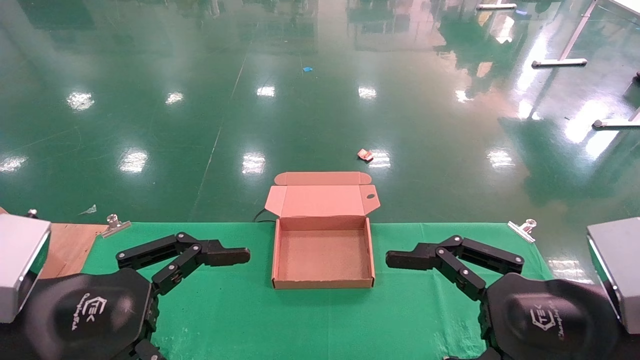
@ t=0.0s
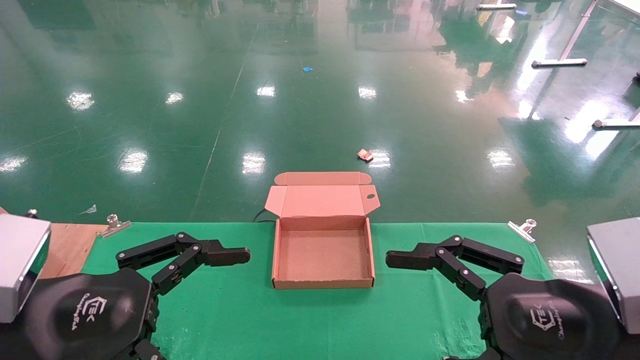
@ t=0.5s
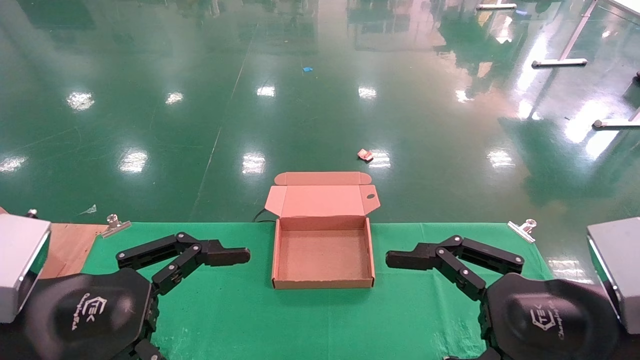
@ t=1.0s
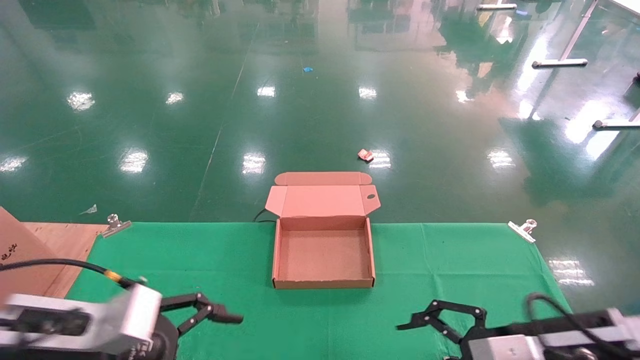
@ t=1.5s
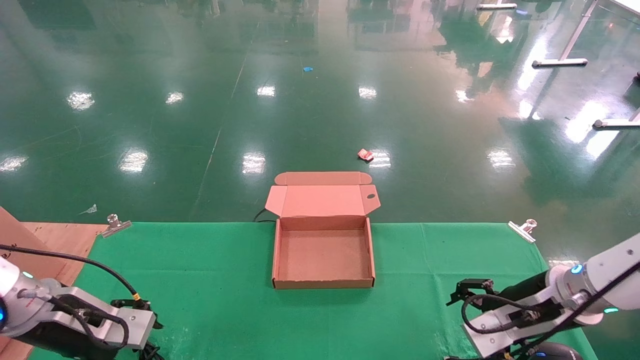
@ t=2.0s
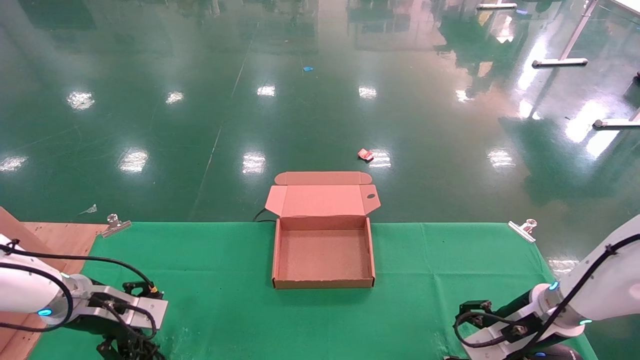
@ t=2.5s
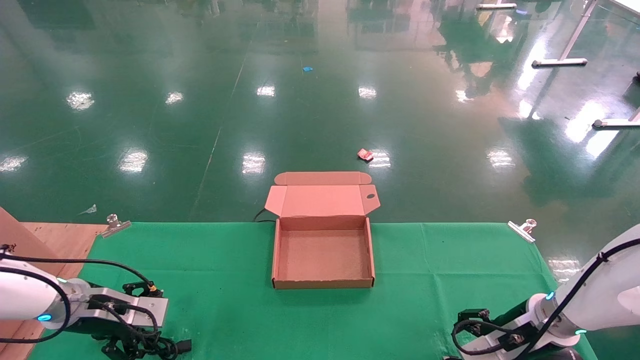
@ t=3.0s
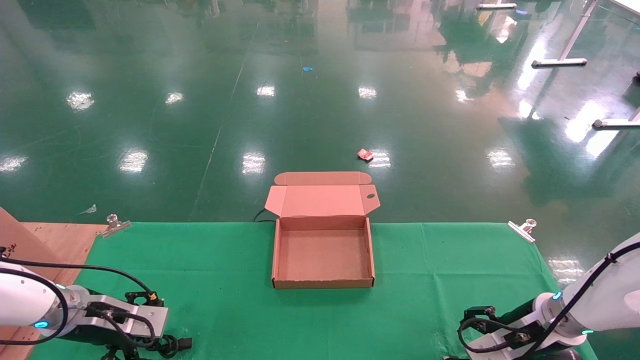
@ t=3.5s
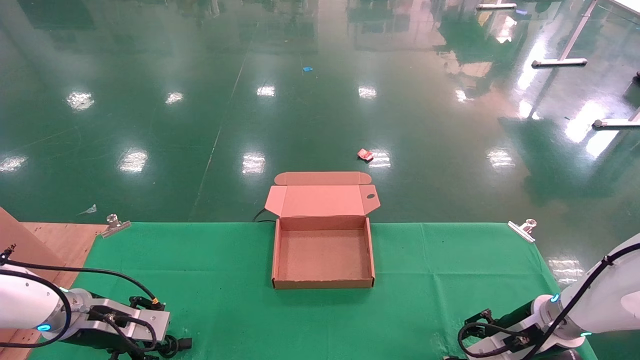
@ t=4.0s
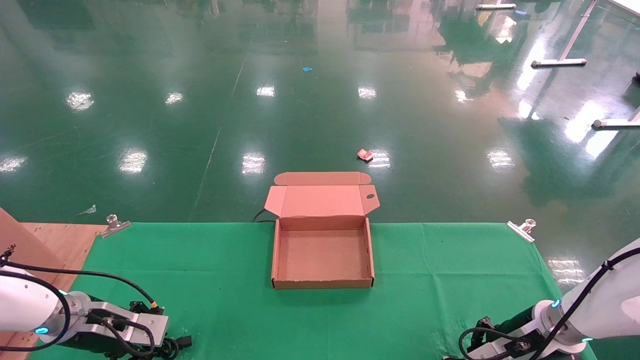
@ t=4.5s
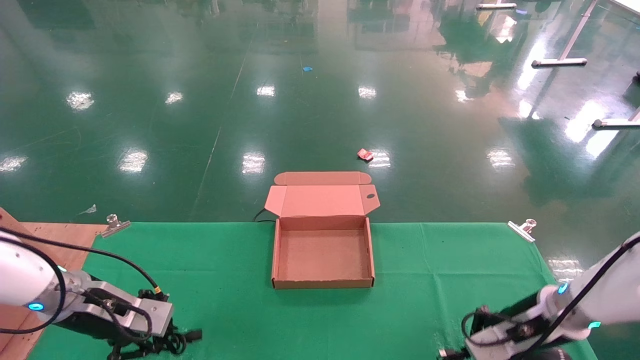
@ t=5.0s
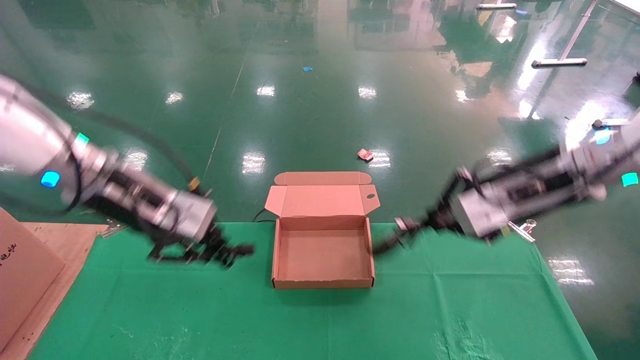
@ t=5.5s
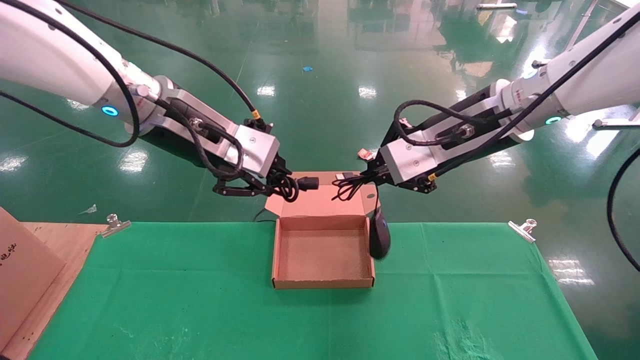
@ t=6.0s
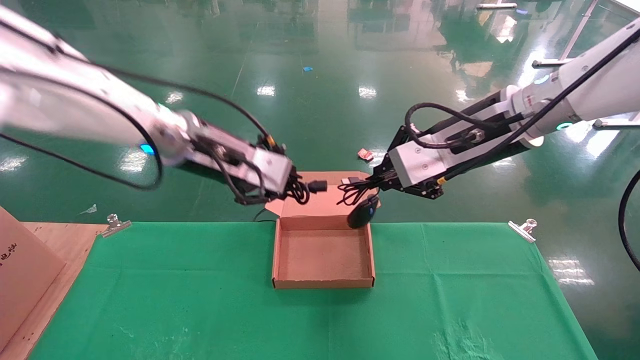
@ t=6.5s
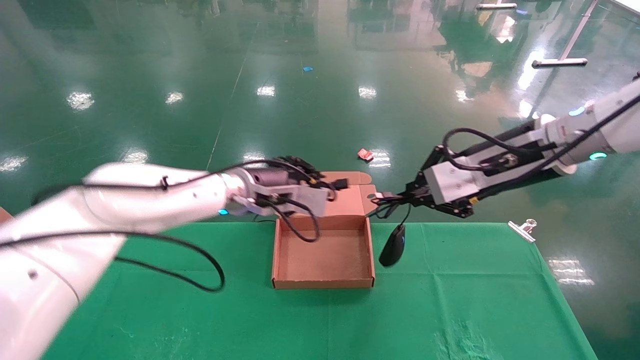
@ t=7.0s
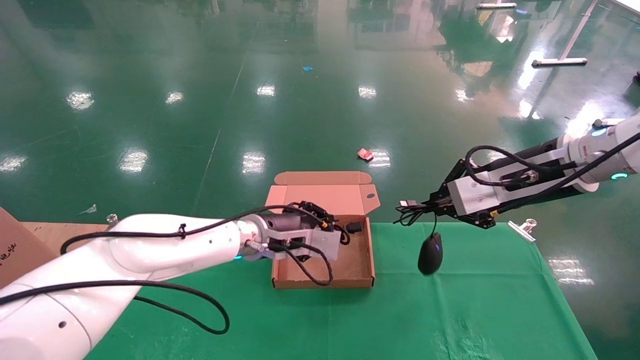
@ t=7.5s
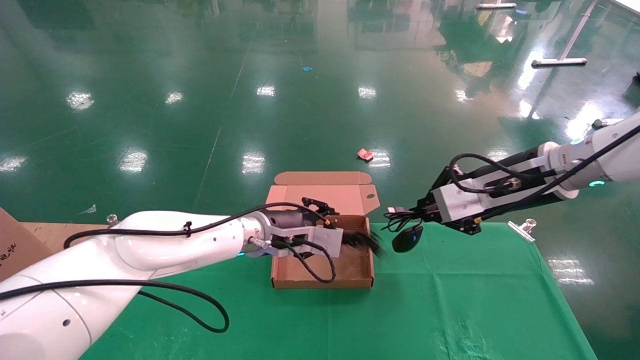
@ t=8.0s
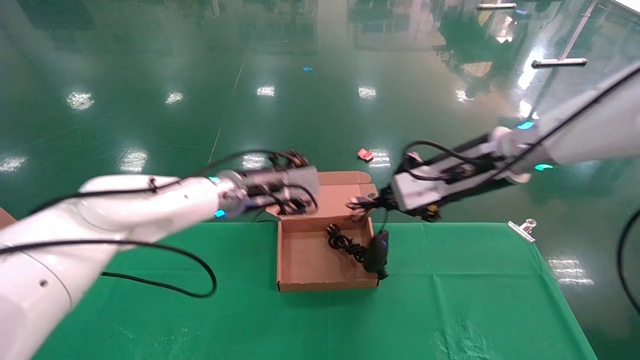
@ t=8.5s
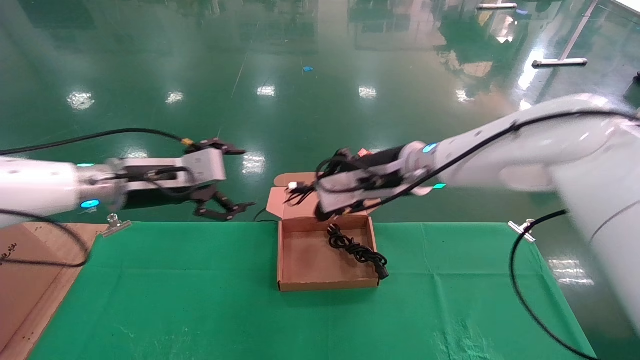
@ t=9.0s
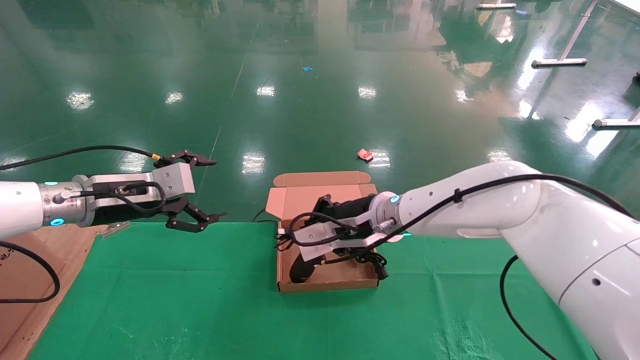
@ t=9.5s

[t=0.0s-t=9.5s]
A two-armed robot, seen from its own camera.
Step, t=1.5s to t=5.0s: Grab and lift both the mouse and power cord from the accessory packaging area at the same time.
t=0.0s to t=2.0s: The left gripper shifts roughly 20 cm forward, downward and to the left. Meanwhile the right gripper heads forward and downward, covering approximately 20 cm.
t=2.0s to t=4.0s: The grippers both shift downward by about 5 cm. The left gripper closes its fingers.
t=4.0s to t=5.5s: The right gripper shifts some 25 cm upward, and closes its fingers. The left gripper travels upward and to the right by roughly 25 cm, and closes its fingers.
t=5.5s to t=7.5s: The right gripper reaches approximately 5 cm to the left, then returns. Meanwhile the left gripper shifts some 20 cm to the right, downward and forward.
t=7.5s to t=9.5s: The right gripper heads to the left and downward, covering about 20 cm; the left gripper moves to the left, some 20 cm, and opens.

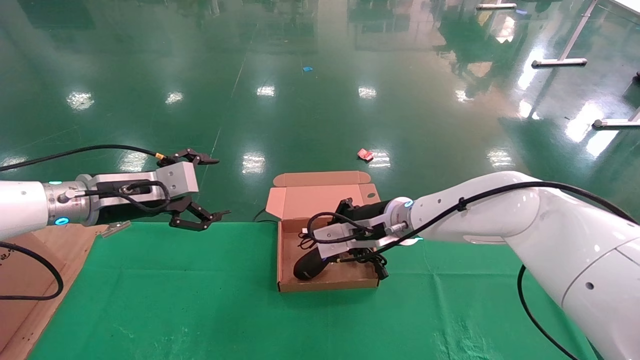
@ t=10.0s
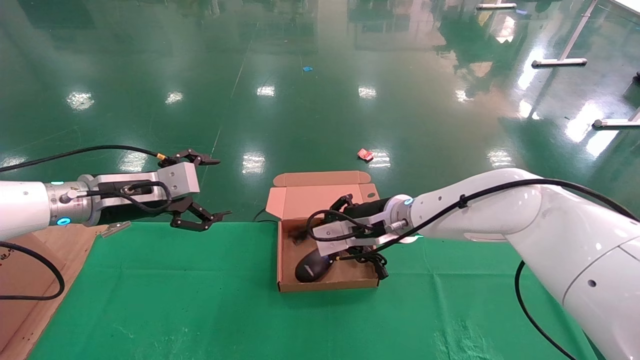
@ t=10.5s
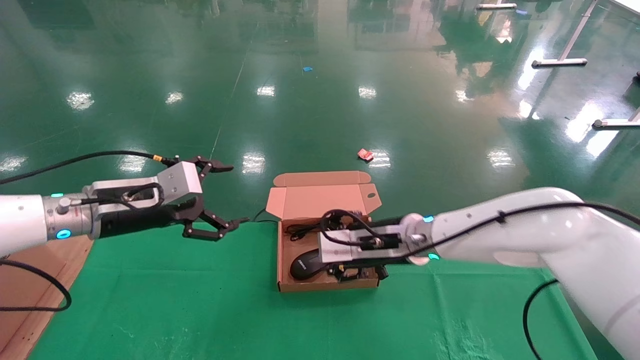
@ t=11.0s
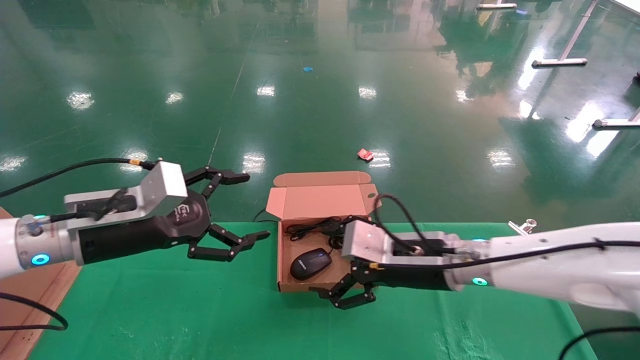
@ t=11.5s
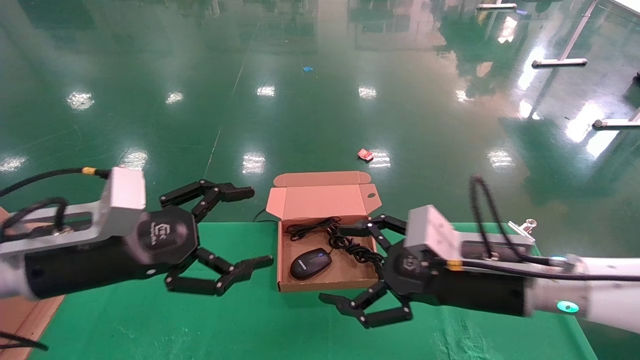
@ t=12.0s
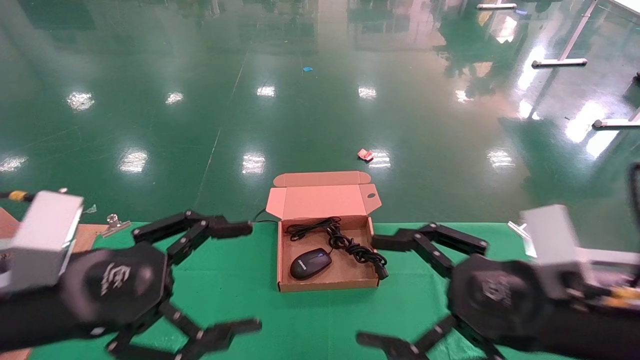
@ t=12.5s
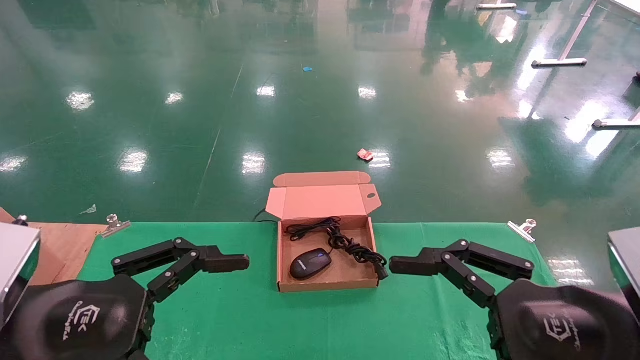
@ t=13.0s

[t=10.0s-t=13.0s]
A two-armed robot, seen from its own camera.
t=10.0s to t=11.5s: The right gripper is displaced backward and to the right by some 10 cm, and opens its fingers. Meanwhile the left gripper heads backward, covering some 5 cm.
t=11.5s to t=13.0s: The right gripper heads backward and to the right, covering roughly 25 cm. Meanwhile the left gripper moves backward, approximately 15 cm.

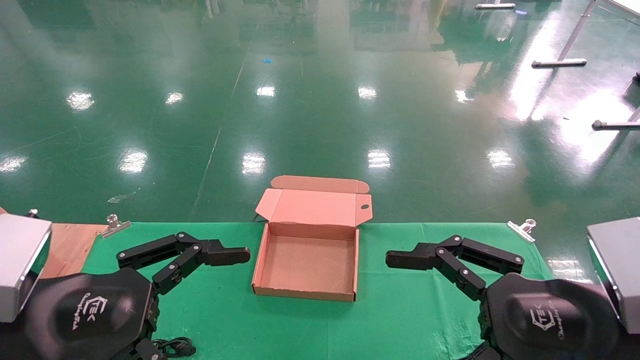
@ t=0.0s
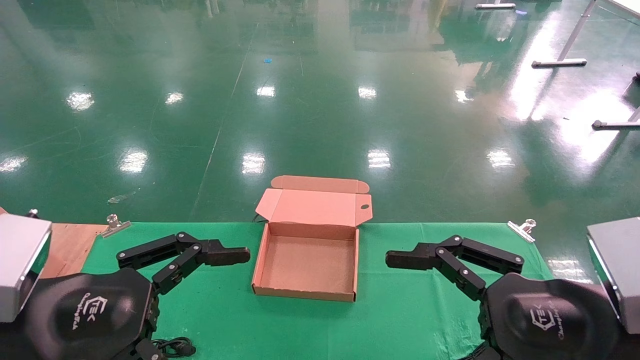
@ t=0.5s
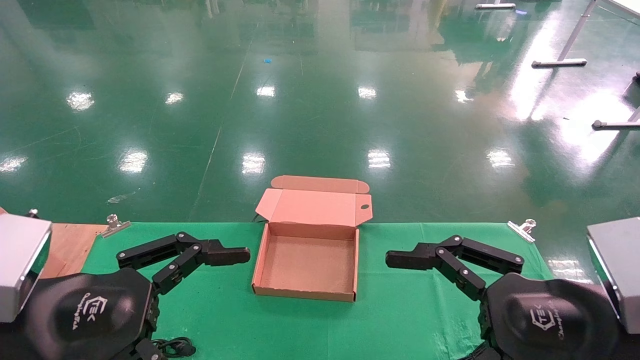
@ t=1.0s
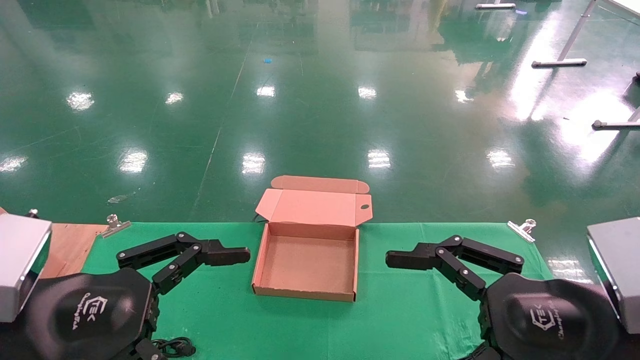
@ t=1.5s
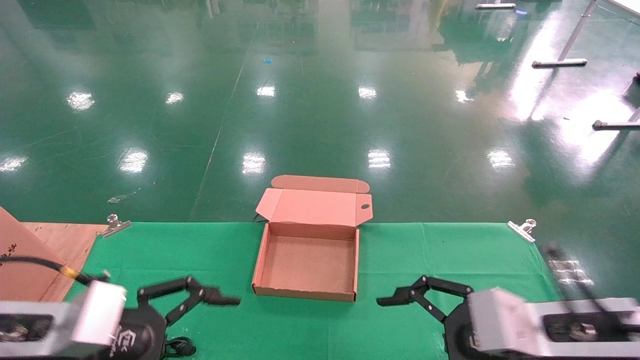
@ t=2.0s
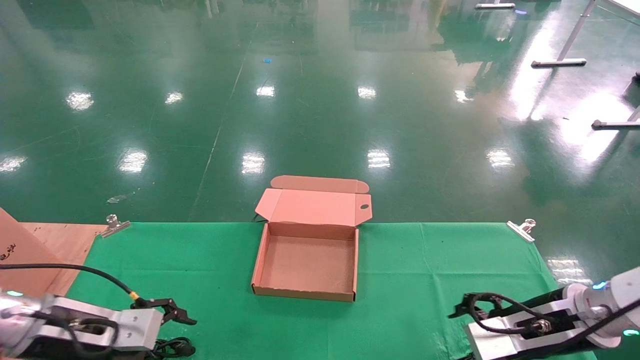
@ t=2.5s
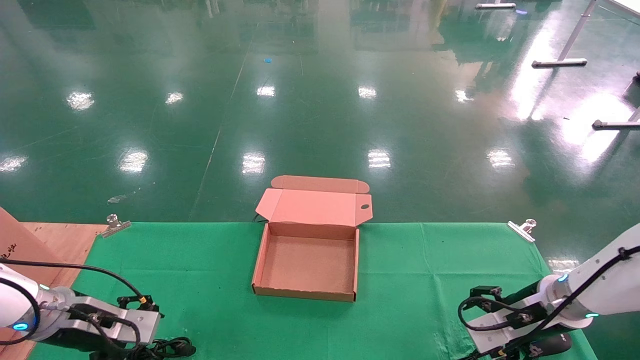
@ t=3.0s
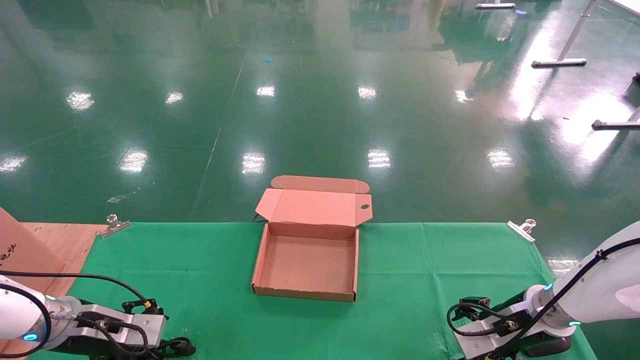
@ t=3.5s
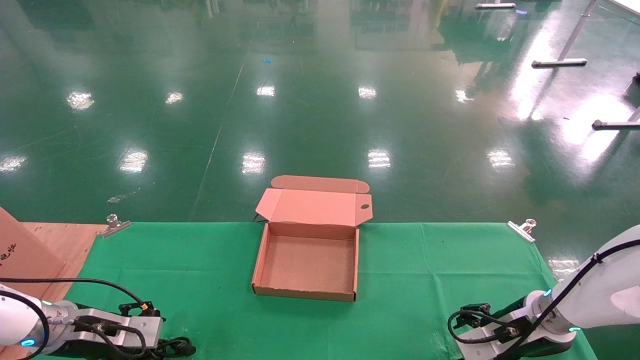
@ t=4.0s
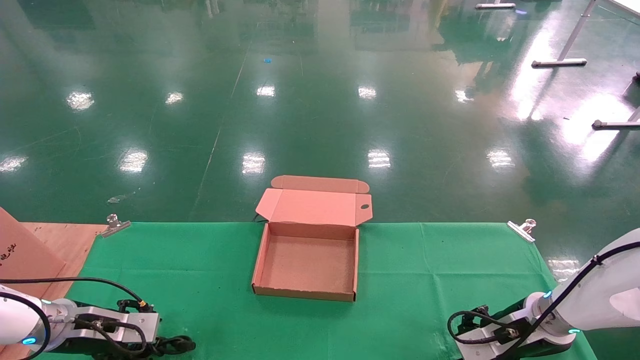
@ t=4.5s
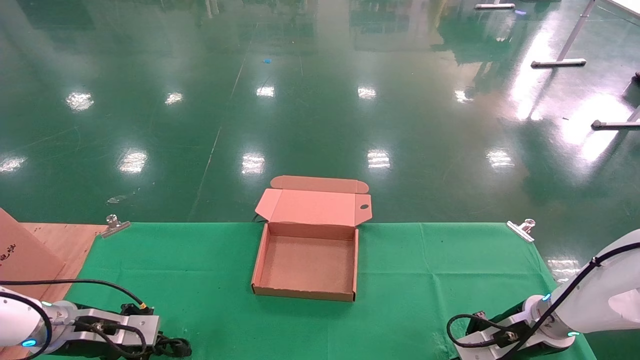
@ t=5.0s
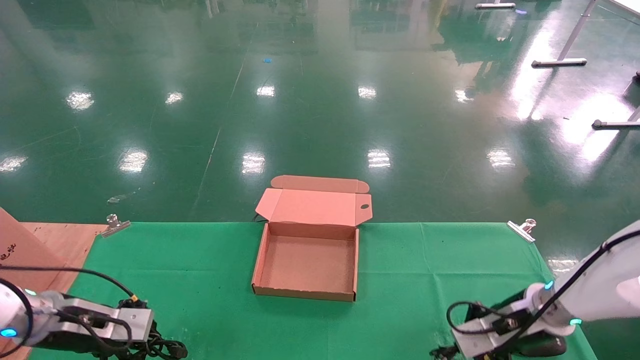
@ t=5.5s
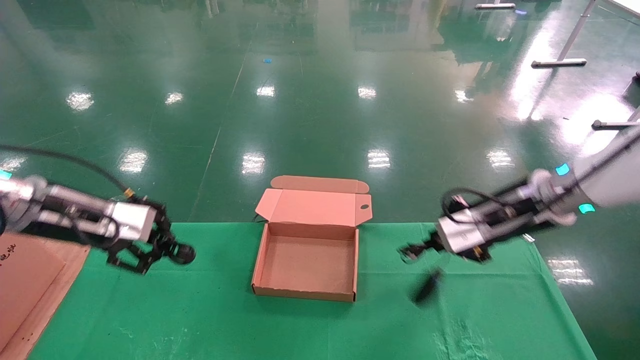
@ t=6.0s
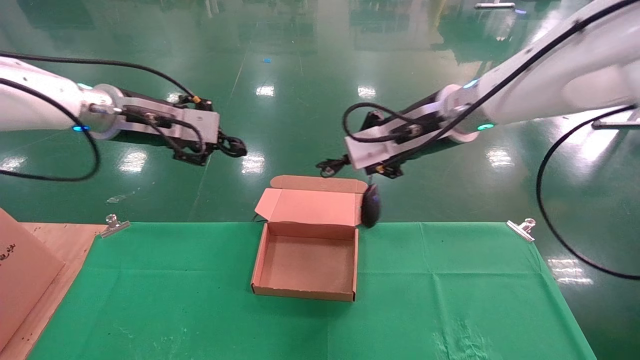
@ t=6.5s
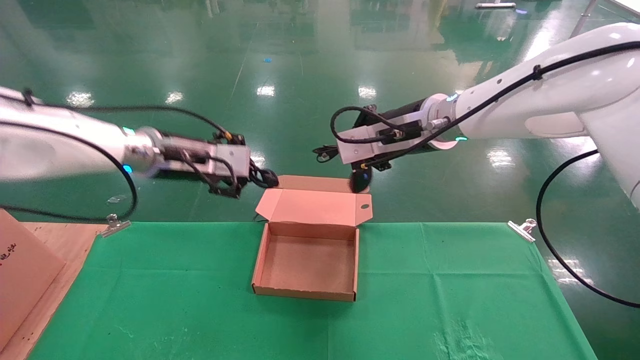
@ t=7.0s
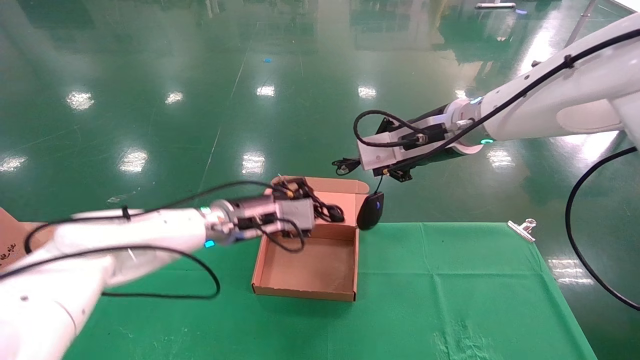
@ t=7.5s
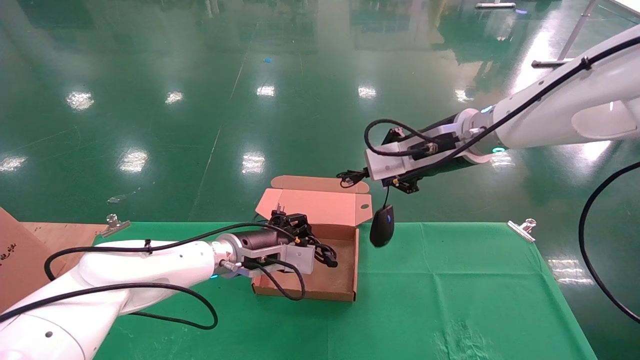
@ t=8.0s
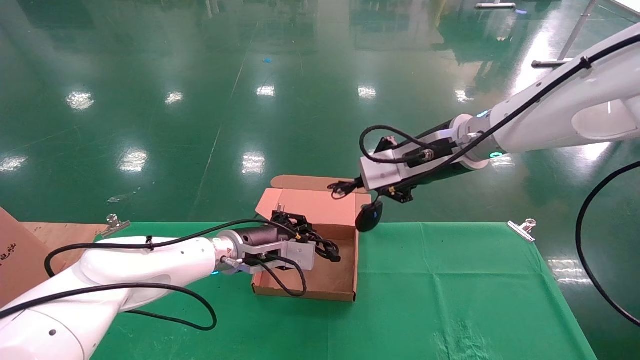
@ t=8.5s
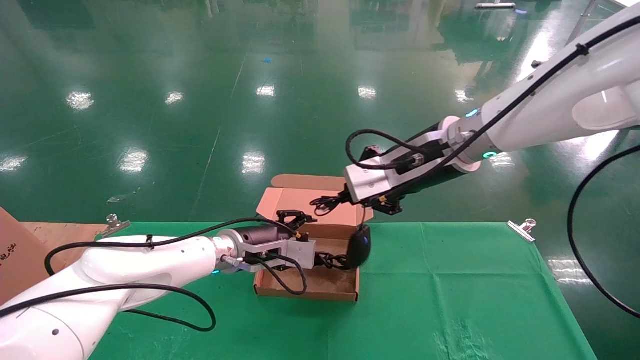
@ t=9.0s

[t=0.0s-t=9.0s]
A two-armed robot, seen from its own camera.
Step, t=2.5s to t=6.0s: Grab and lift both the mouse and power cord from the accessory packaging area at the same time.
t=0.0s to t=2.0s: The left gripper heads forward, covering about 5 cm, while the right gripper moves forward and downward, some 10 cm.
t=2.0s to t=4.5s: The left gripper heads forward, downward and to the left, covering approximately 20 cm. Meanwhile the right gripper is displaced forward and downward by approximately 20 cm.
t=4.5s to t=7.0s: The right gripper heads upward and to the left, covering roughly 35 cm, and closes up. The left gripper heads upward and to the right, covering approximately 30 cm, and closes up.
t=7.0s to t=9.0s: The left gripper travels downward and to the right by roughly 15 cm, and opens its fingers.
